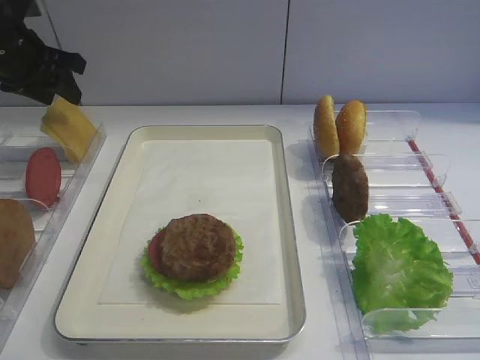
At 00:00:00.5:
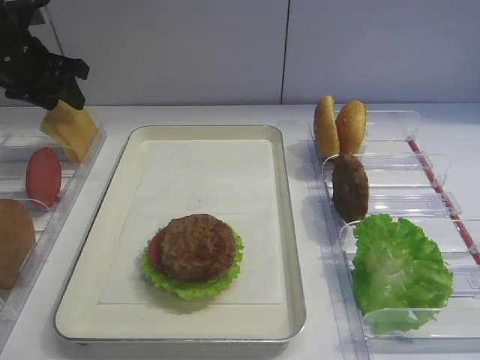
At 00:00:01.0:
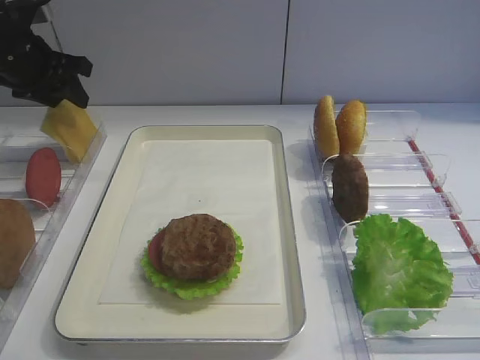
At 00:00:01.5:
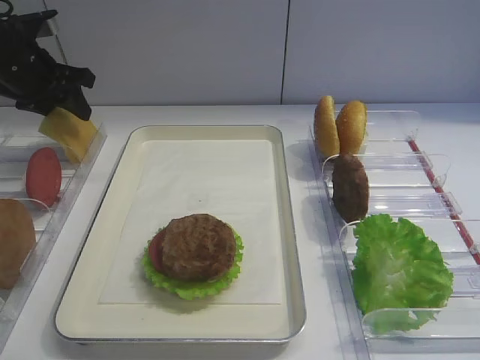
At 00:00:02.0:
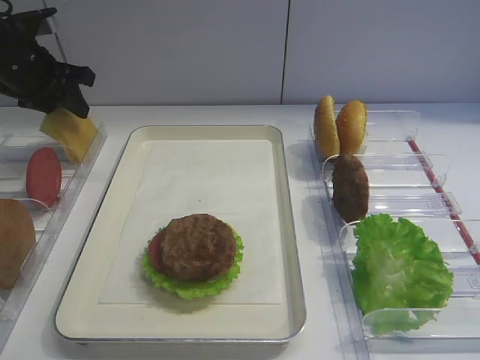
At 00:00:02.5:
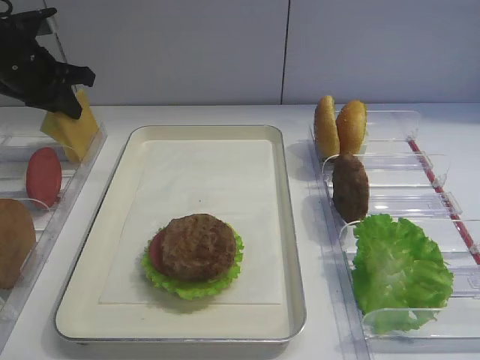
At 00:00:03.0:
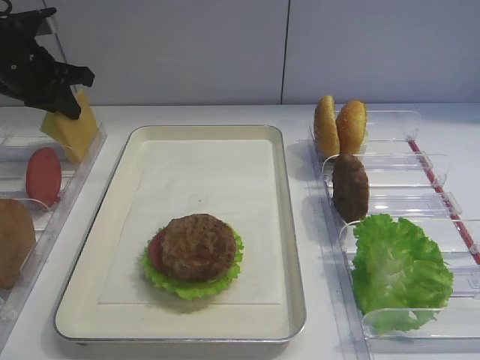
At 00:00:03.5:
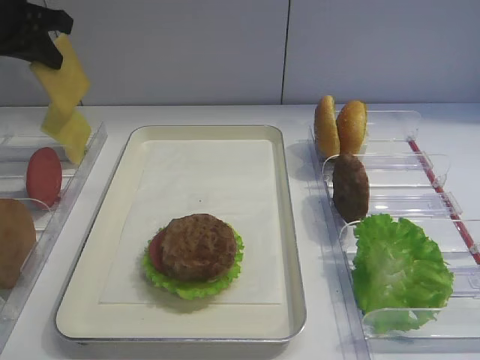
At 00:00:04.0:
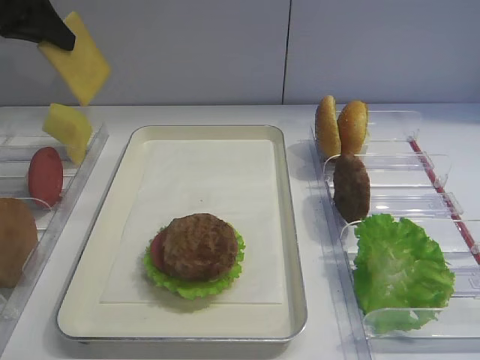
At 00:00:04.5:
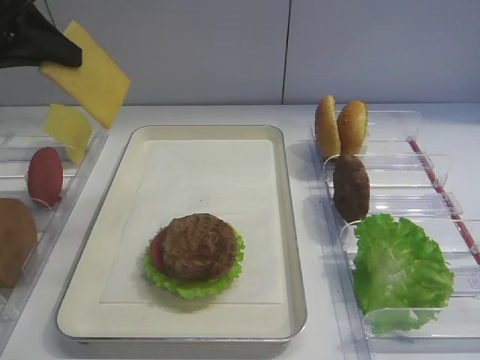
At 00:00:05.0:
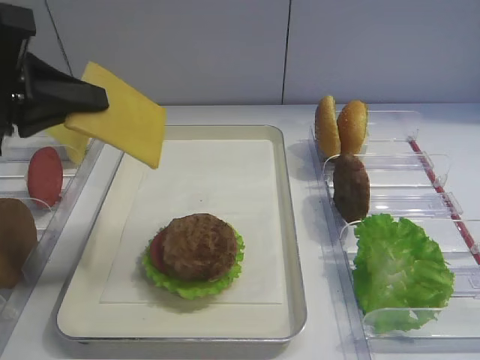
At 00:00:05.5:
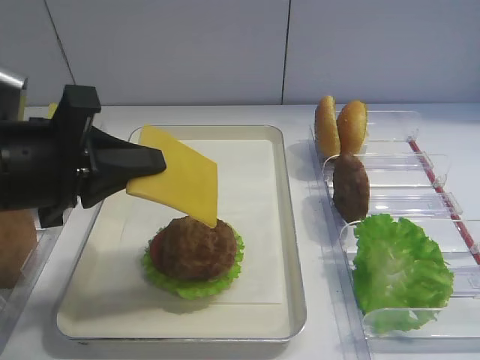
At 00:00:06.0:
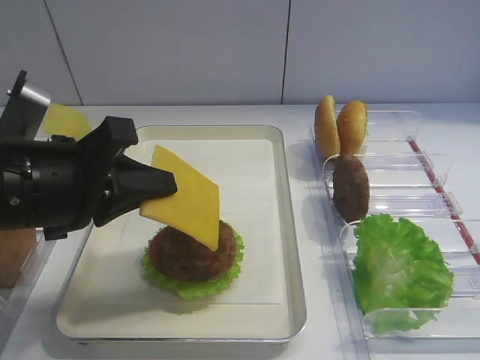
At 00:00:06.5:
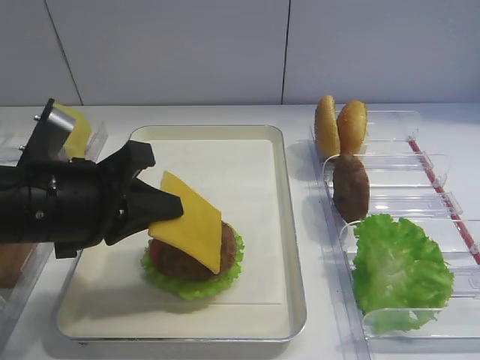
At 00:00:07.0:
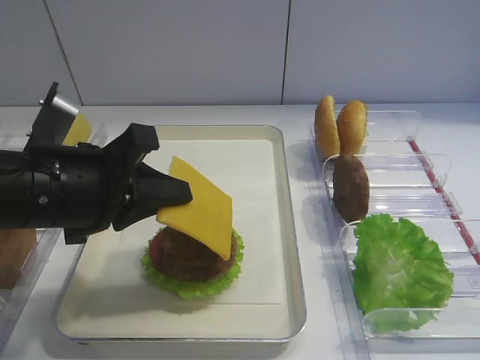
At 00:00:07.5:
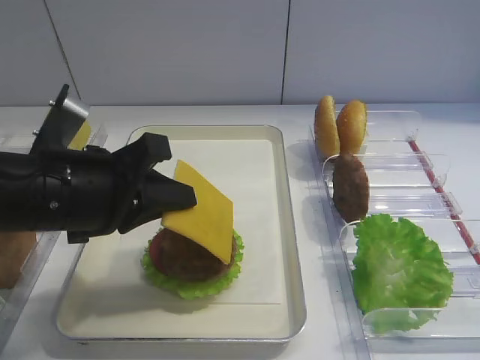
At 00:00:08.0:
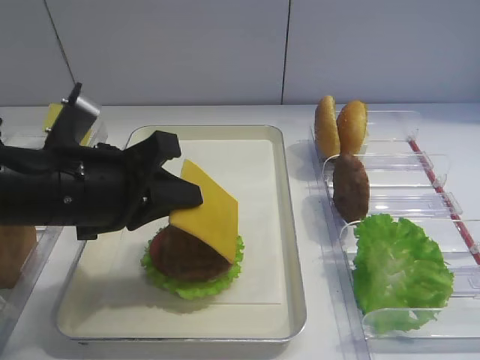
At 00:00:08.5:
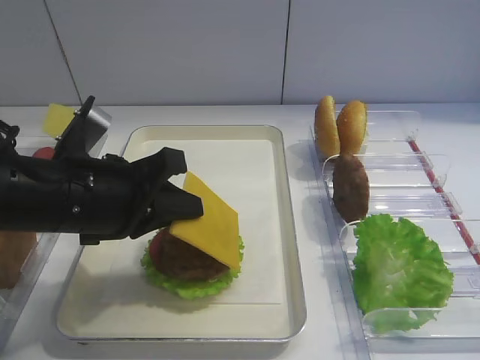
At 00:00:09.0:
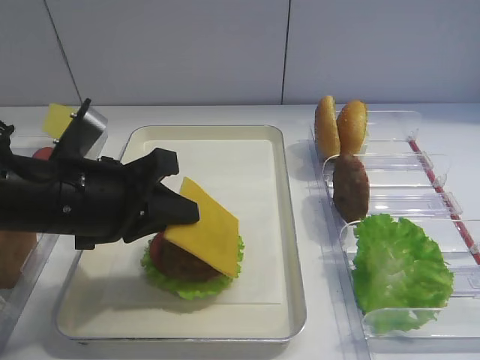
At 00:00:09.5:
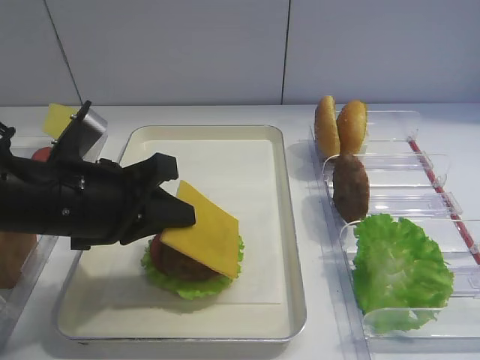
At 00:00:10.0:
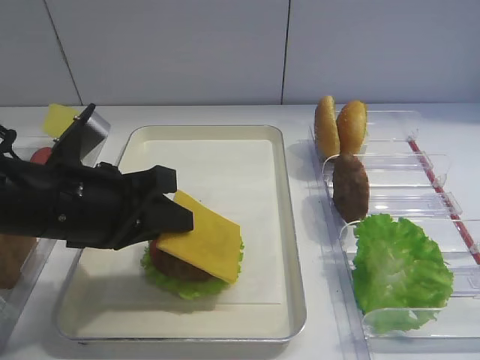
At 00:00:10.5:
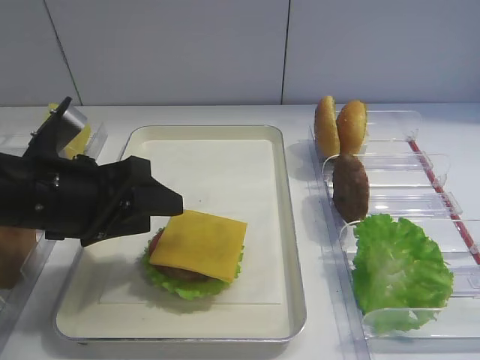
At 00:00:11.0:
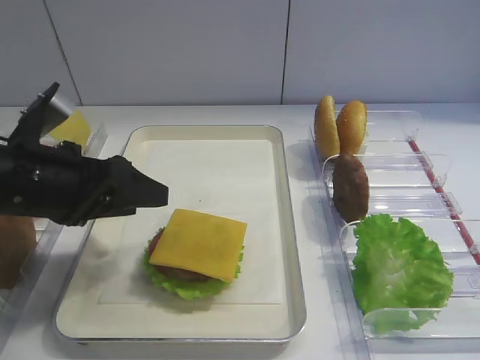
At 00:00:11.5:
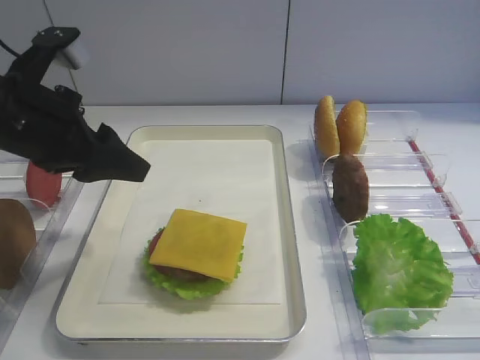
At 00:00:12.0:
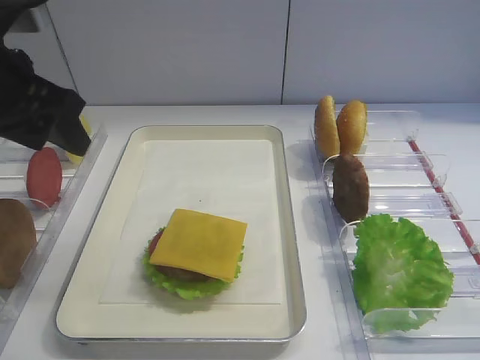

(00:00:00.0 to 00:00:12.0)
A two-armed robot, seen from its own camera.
Step, 00:00:00.0 - 00:00:03.0: Pick up the cheese slice with the left gripper.
Step, 00:00:03.5 - 00:00:10.5: Place the cheese slice on the cutlet with the left gripper.
00:00:00.0 - 00:00:02.0: The grippers make only small movements.
00:00:02.0 - 00:00:04.0: The left gripper moves upward and backward, roughly 10 cm, and closes its fingers.
00:00:04.0 - 00:00:06.0: The left gripper shifts approximately 25 cm backward, to the right and downward.
00:00:06.0 - 00:00:10.0: The grippers move only a little.
00:00:10.0 - 00:00:12.0: The left gripper goes approximately 15 cm upward, to the left and forward, and opens its fingers.

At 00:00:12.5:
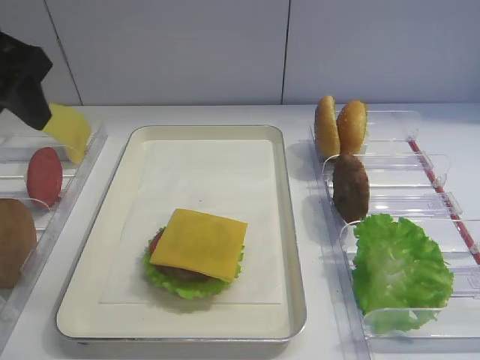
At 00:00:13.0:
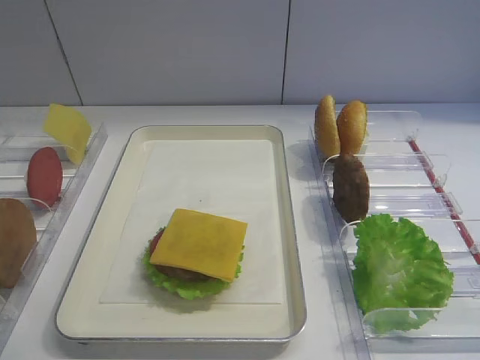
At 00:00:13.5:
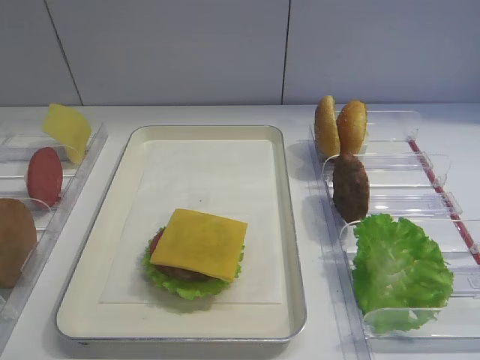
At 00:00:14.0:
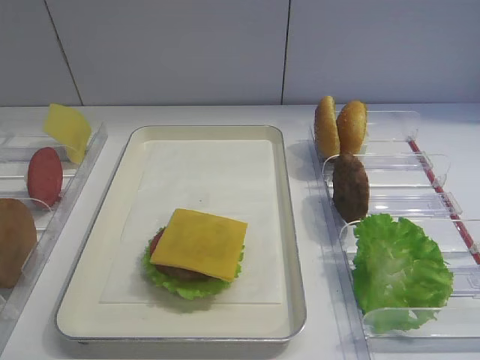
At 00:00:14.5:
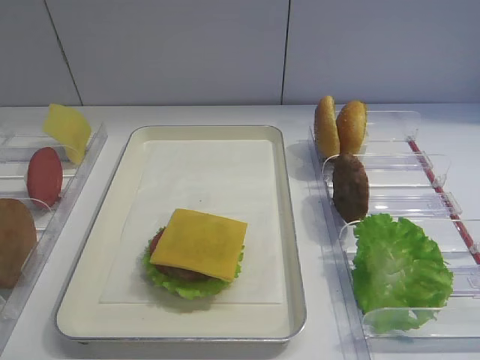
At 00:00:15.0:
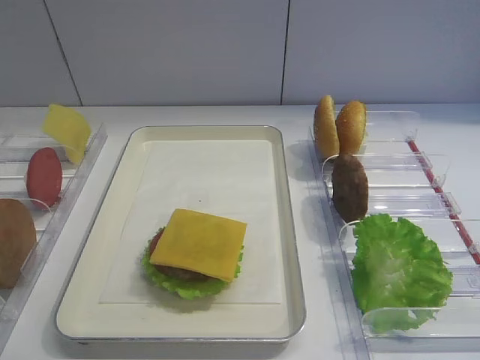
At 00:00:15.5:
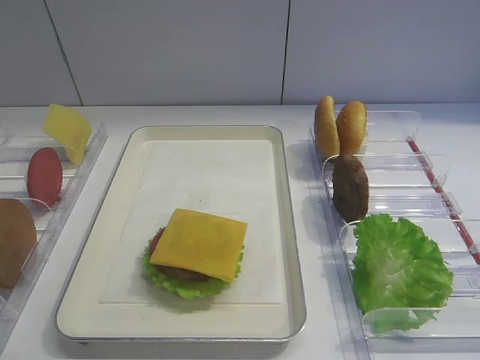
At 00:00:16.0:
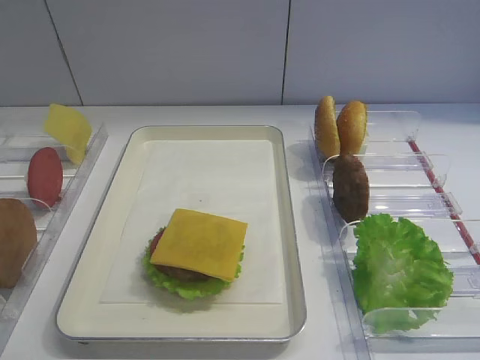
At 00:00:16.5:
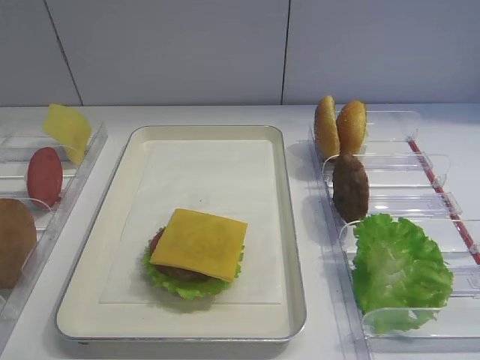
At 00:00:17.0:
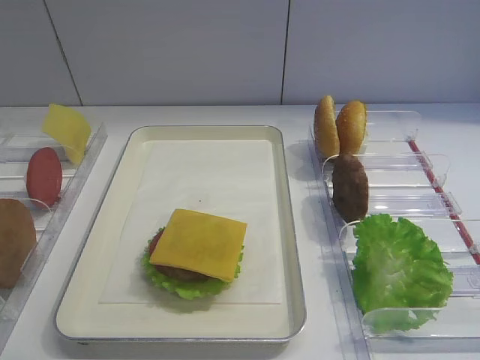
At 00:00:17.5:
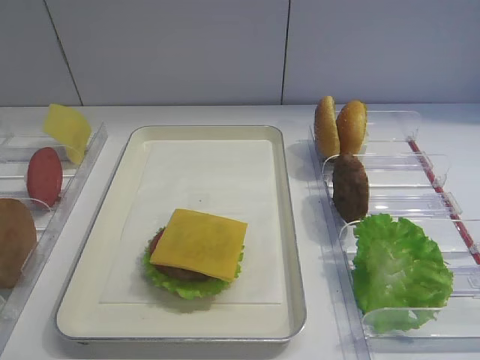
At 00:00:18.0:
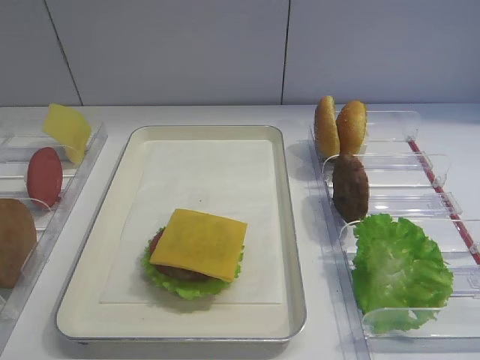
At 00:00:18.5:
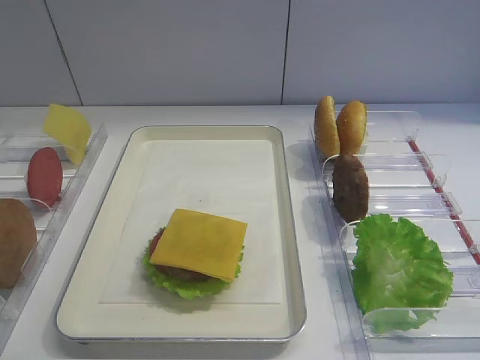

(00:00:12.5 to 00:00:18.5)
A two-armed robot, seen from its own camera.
00:00:12.5 - 00:00:14.5: The left gripper moves backward, some 30 cm.
00:00:16.5 - 00:00:18.5: Both grippers stay about where they are.
